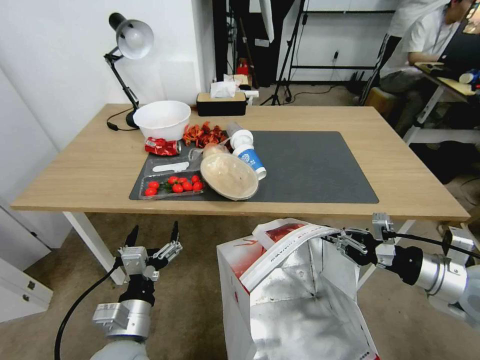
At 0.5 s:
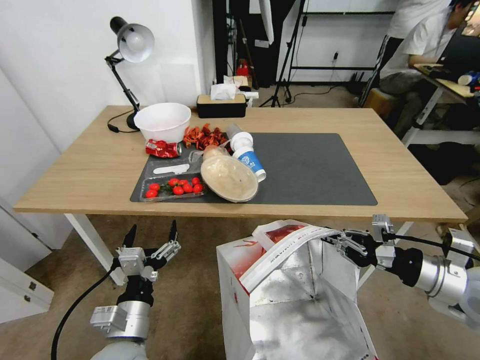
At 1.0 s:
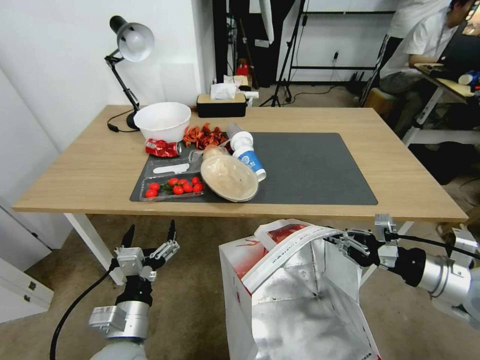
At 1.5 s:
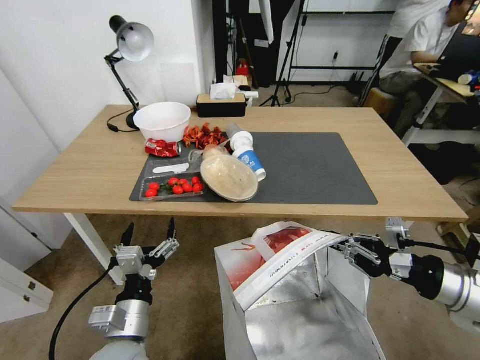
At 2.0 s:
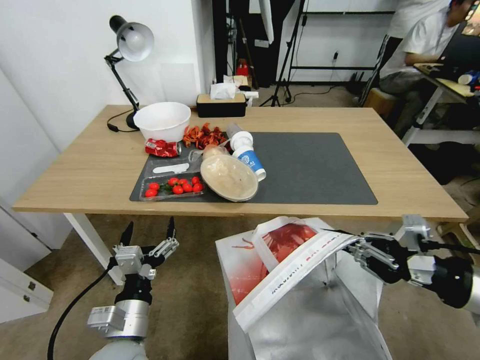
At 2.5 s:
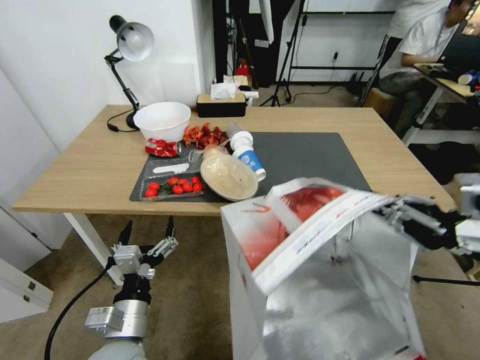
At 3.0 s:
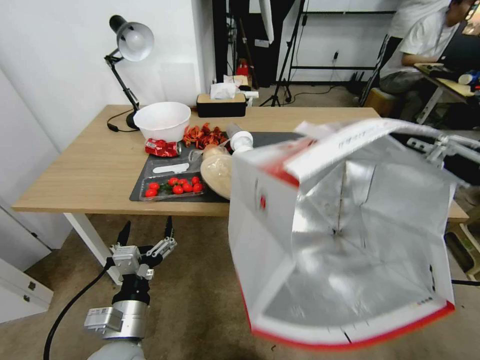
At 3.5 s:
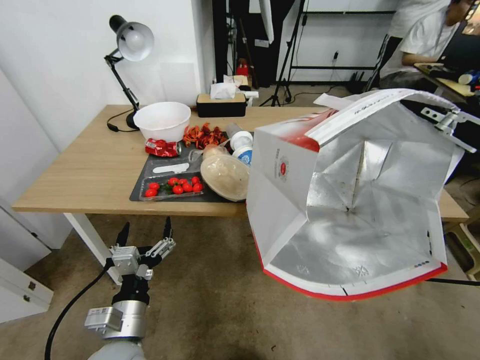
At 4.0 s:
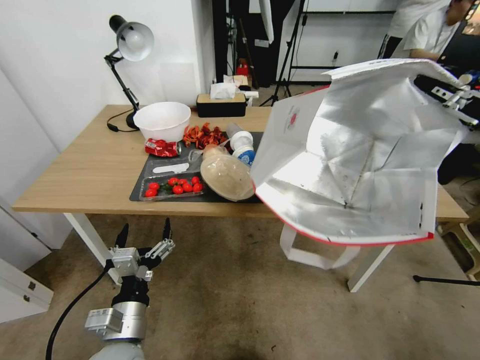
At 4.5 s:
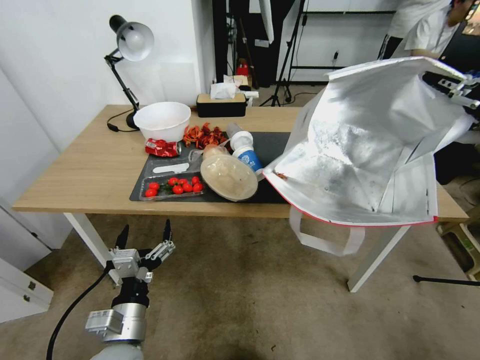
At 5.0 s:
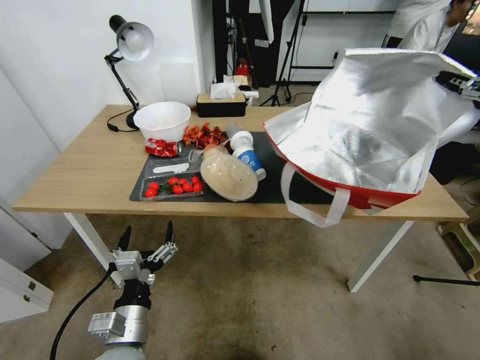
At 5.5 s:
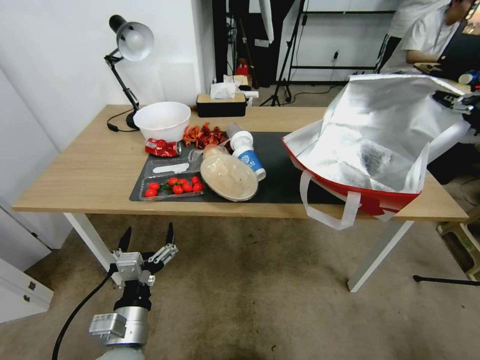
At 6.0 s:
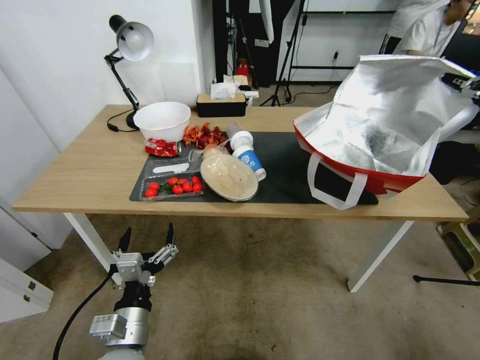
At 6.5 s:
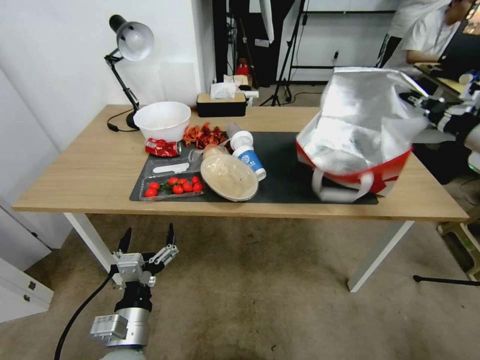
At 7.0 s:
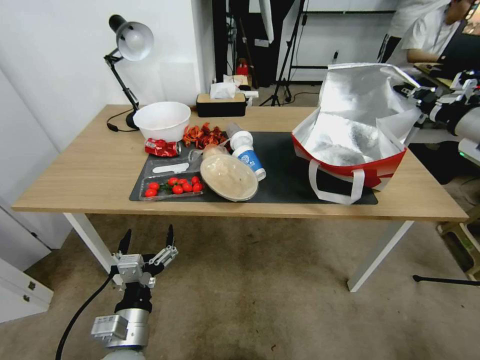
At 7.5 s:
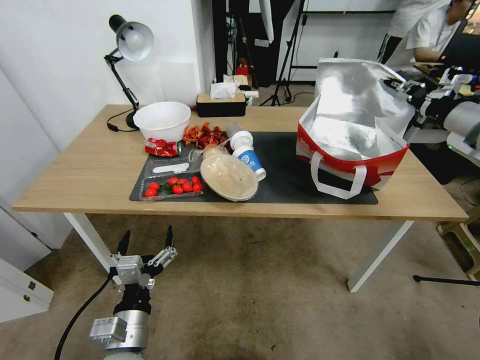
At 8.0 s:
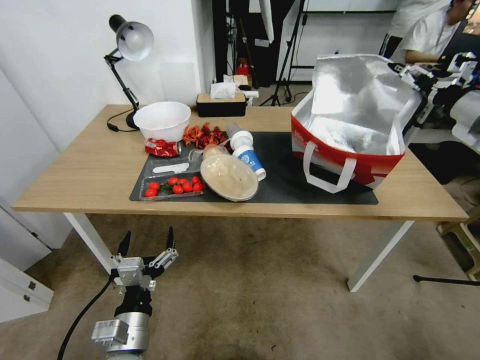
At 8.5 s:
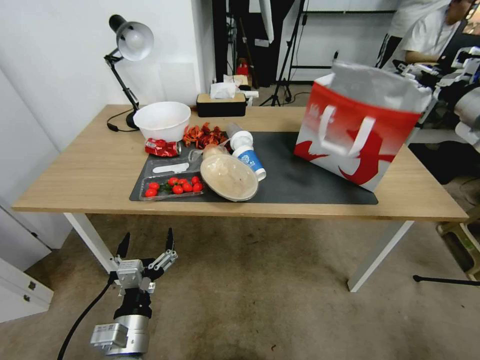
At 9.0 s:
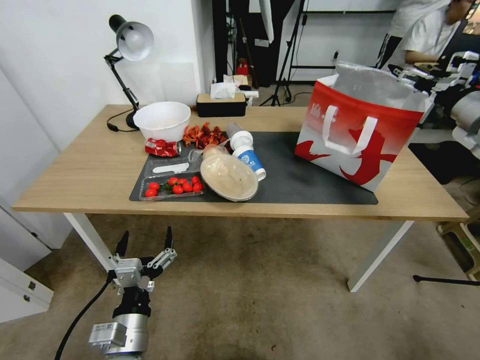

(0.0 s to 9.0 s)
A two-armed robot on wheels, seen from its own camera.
Task of the whole recording: Pick up the food delivery bag from the floor and place it on the table.
0.0 s - 2.0 s: The right gripper shifts roughly 10 cm upward and backward.
2.0 s - 4.5 s: The right gripper moves upward and forward, approximately 15 cm.
4.5 s - 7.0 s: The right gripper is displaced forward by about 15 cm.
7.0 s - 9.0 s: The right gripper opens its fingers.

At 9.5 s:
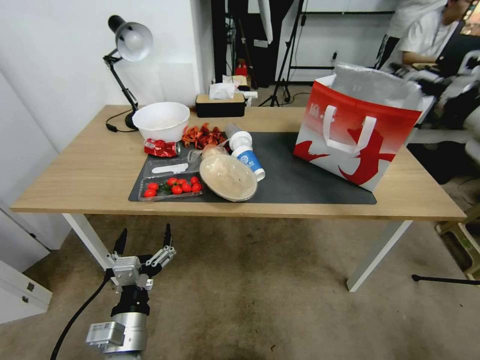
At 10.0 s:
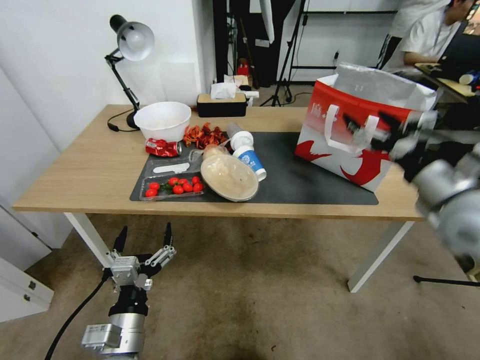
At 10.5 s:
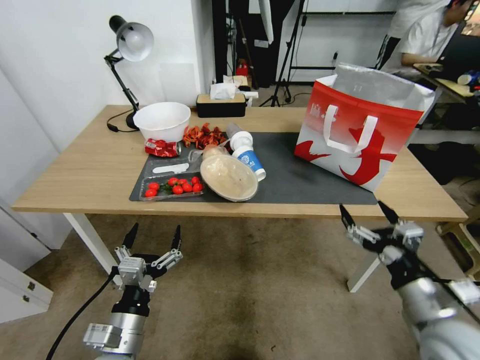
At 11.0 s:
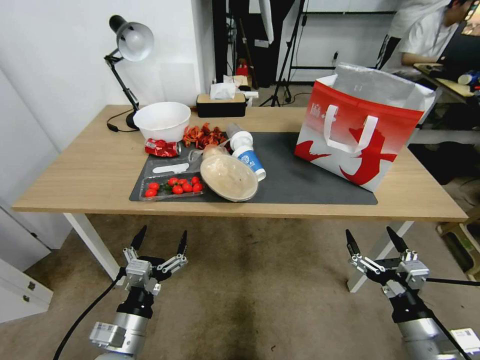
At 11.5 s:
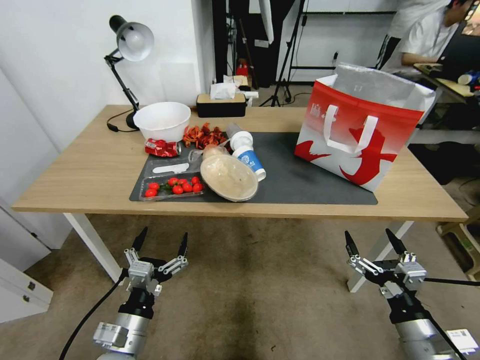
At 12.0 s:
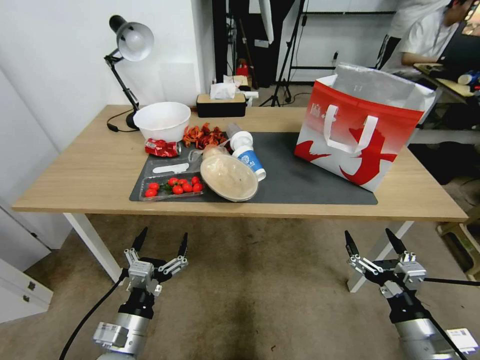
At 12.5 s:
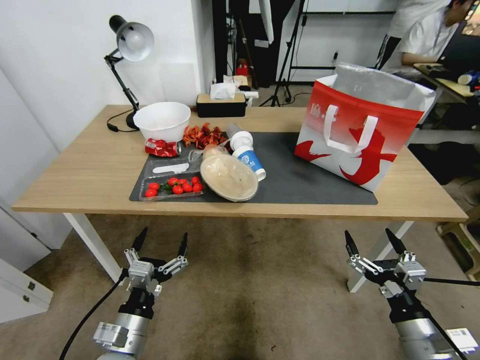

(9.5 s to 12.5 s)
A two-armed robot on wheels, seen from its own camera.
Task of the whole recording: Pick up the food delivery bag from the floor and place it on the table.
9.5 s - 11.0 s: The right gripper is displaced downward, backward and to the left by approximately 40 cm.
11.0 s - 12.5 s: Neither gripper changes place.
